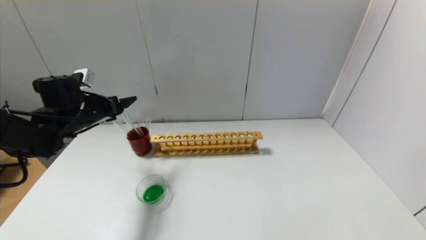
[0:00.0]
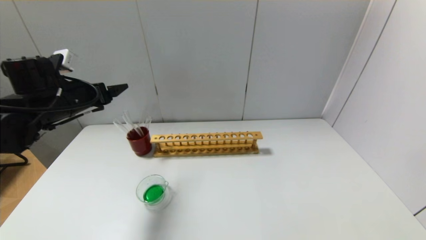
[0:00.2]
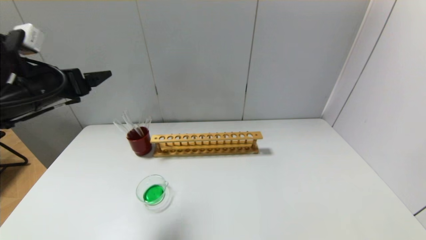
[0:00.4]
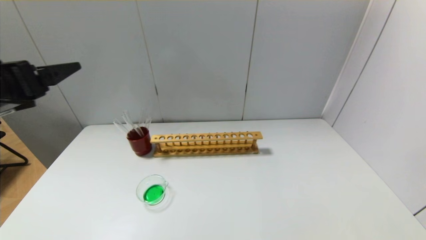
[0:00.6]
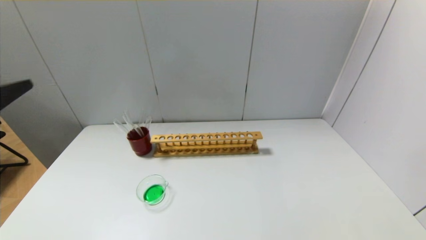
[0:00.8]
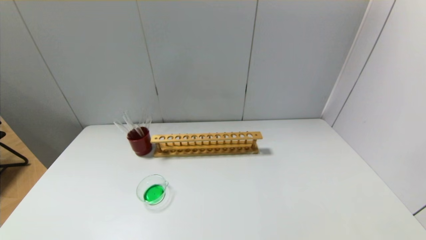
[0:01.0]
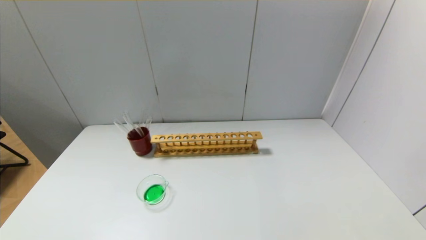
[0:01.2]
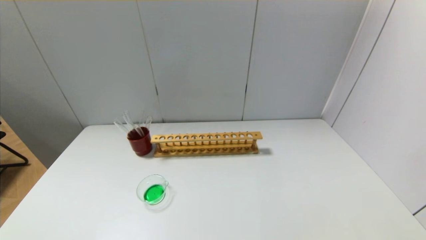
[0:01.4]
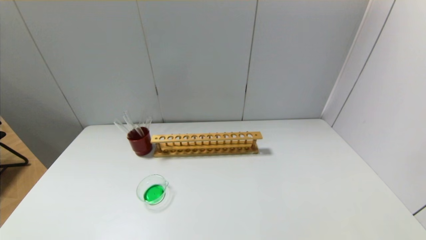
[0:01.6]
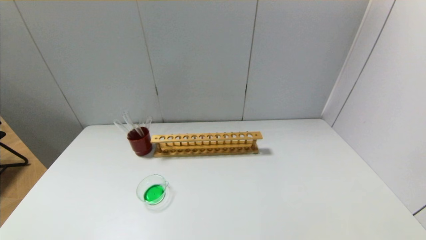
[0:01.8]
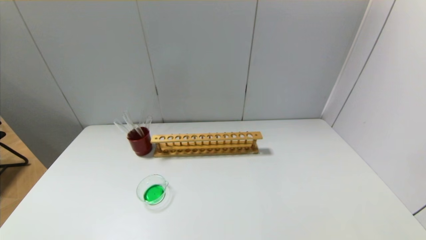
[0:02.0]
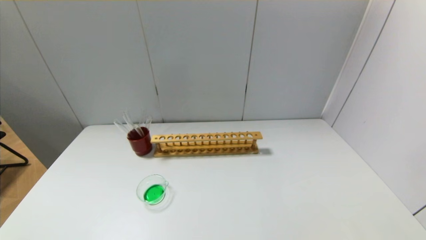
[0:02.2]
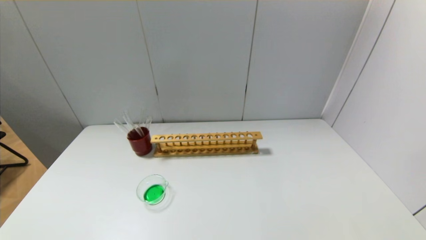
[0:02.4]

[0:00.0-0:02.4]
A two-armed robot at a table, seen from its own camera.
0.0 to 1.2 s: The left gripper is displaced backward by some 40 cm.

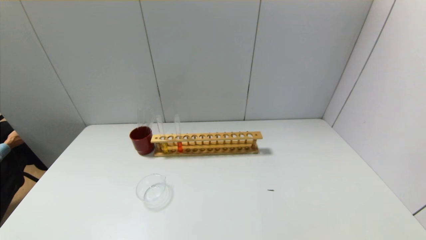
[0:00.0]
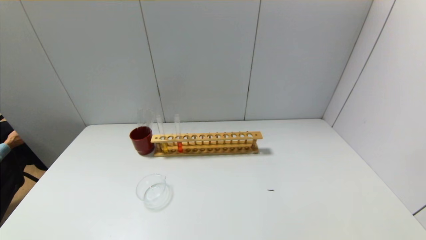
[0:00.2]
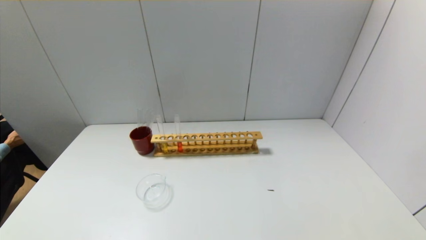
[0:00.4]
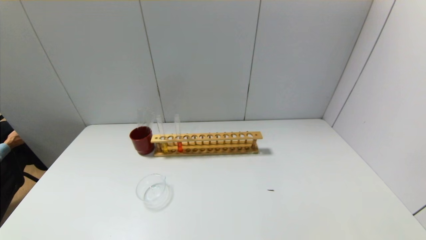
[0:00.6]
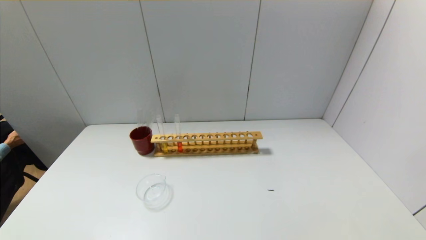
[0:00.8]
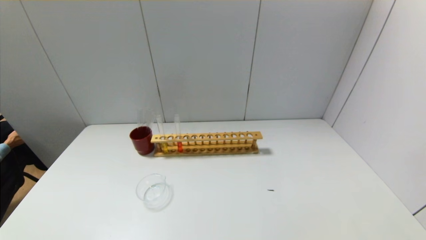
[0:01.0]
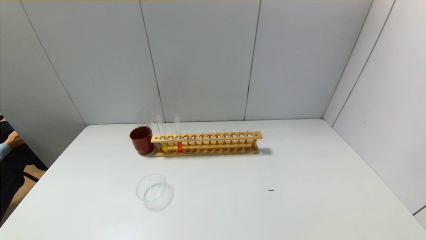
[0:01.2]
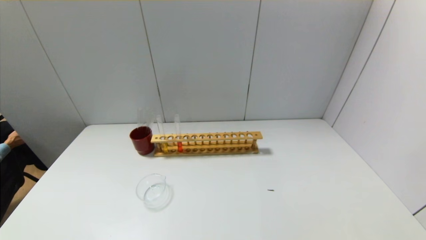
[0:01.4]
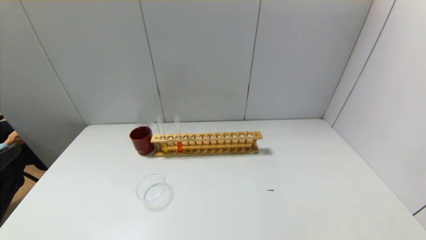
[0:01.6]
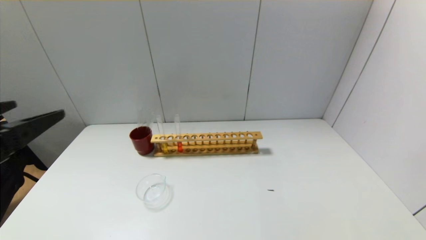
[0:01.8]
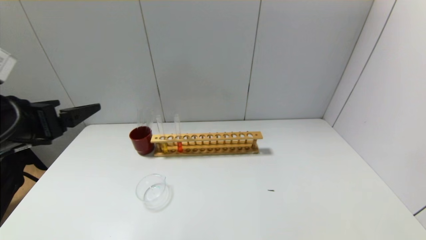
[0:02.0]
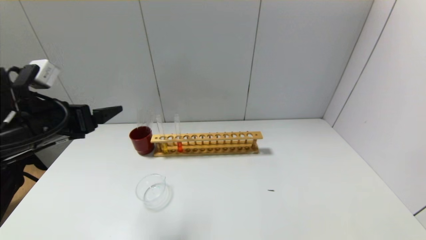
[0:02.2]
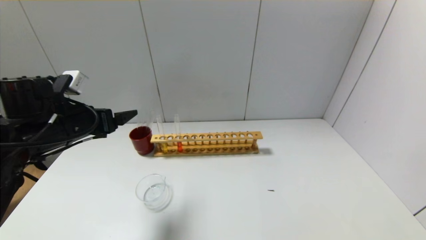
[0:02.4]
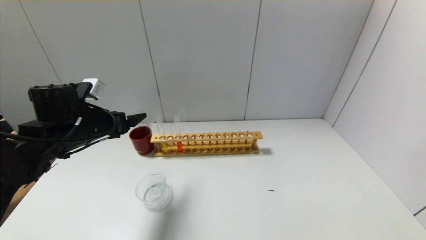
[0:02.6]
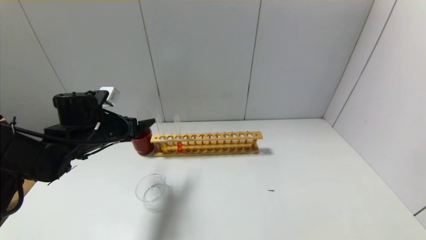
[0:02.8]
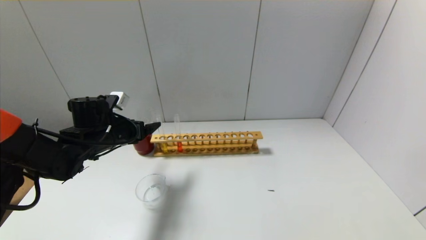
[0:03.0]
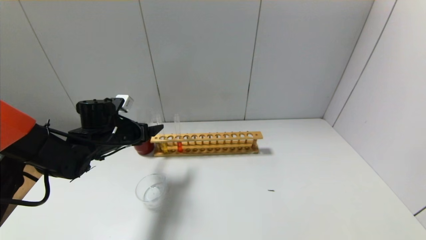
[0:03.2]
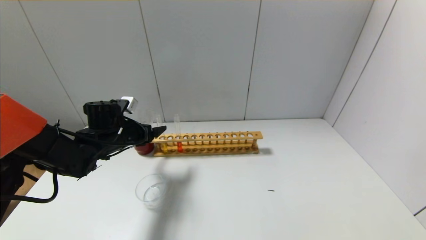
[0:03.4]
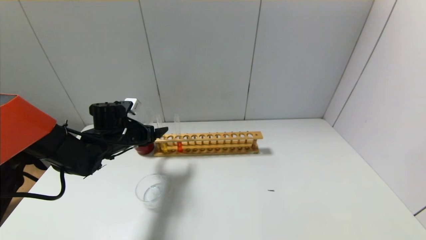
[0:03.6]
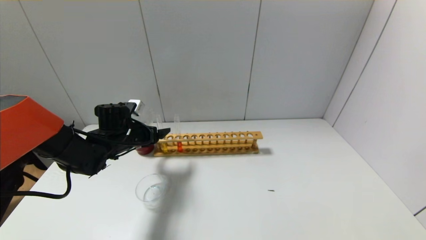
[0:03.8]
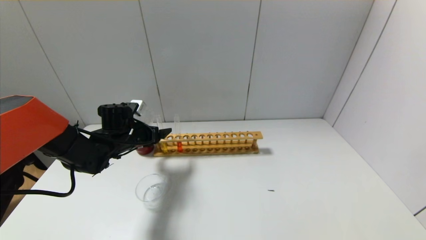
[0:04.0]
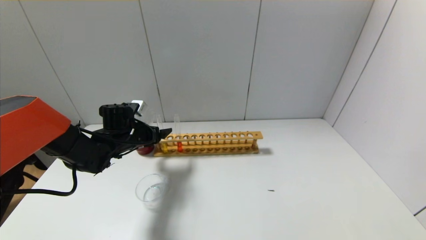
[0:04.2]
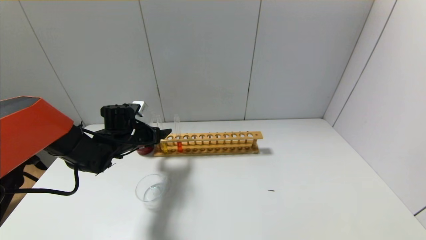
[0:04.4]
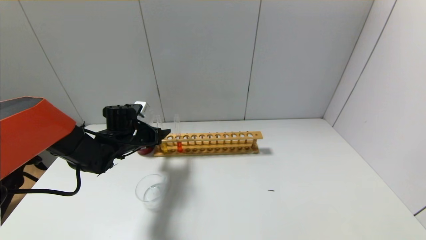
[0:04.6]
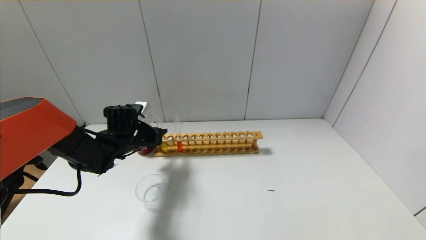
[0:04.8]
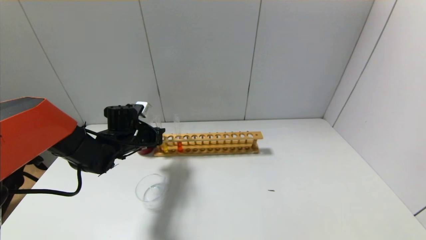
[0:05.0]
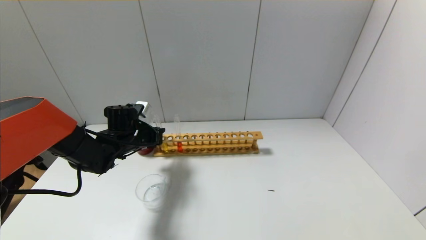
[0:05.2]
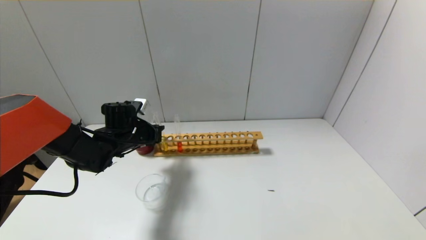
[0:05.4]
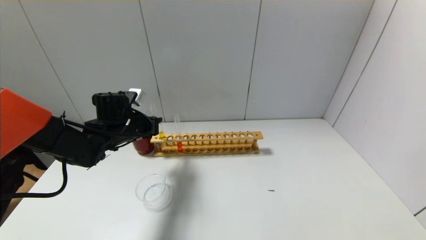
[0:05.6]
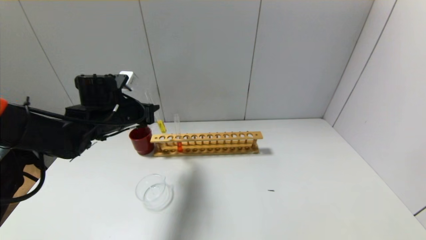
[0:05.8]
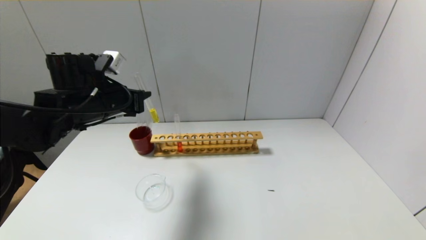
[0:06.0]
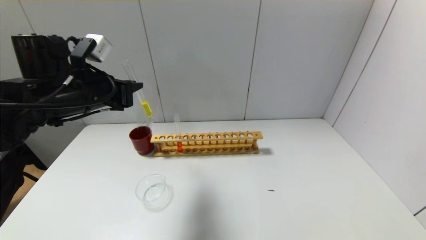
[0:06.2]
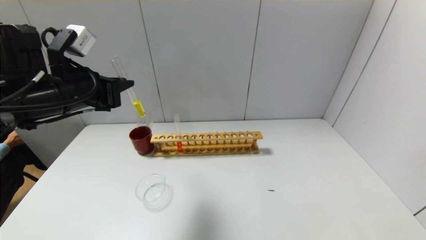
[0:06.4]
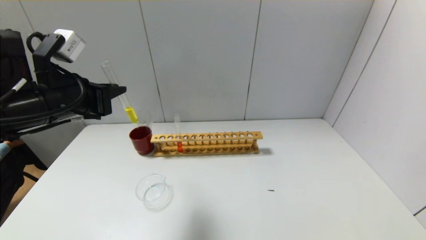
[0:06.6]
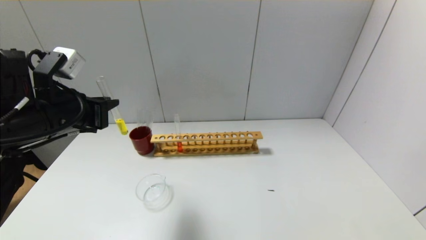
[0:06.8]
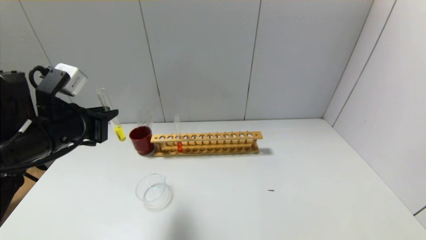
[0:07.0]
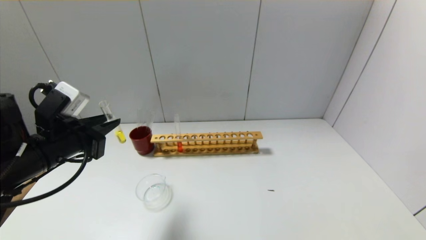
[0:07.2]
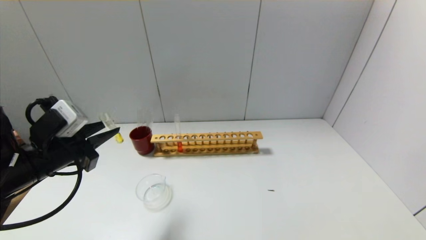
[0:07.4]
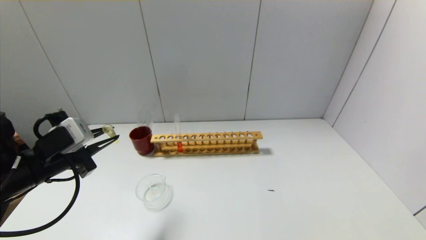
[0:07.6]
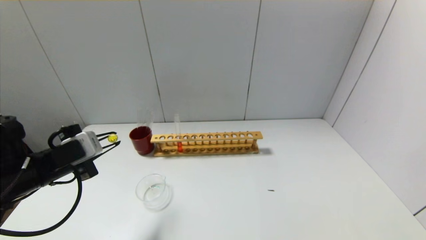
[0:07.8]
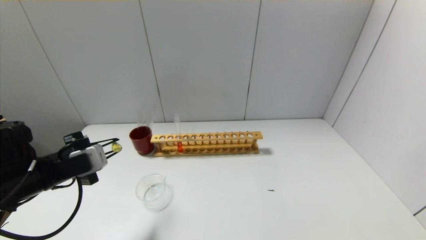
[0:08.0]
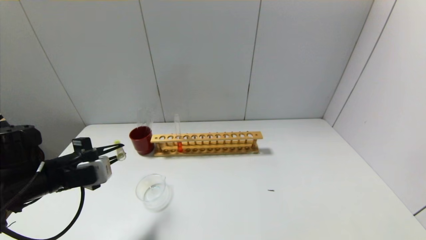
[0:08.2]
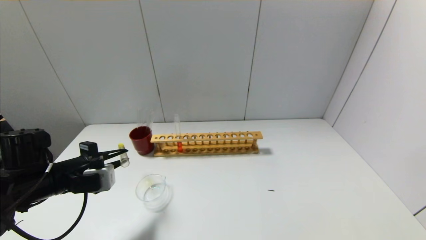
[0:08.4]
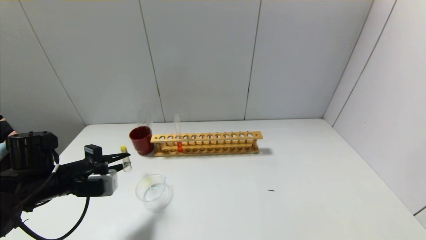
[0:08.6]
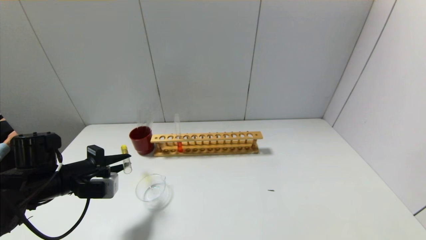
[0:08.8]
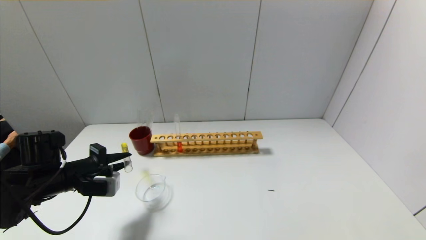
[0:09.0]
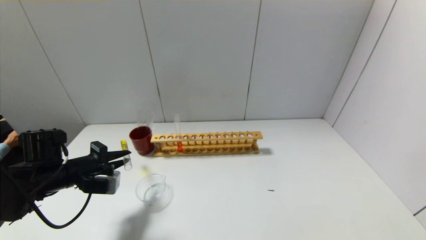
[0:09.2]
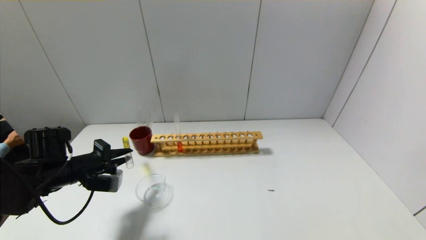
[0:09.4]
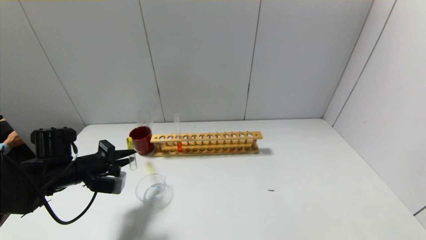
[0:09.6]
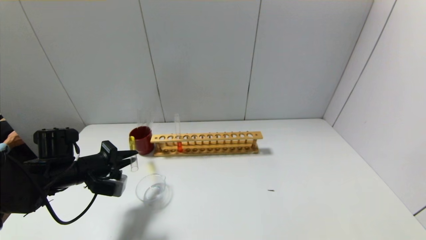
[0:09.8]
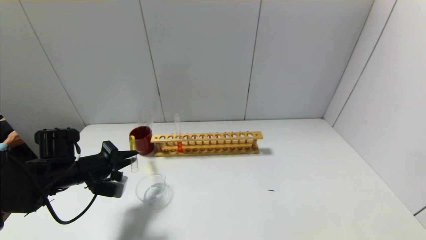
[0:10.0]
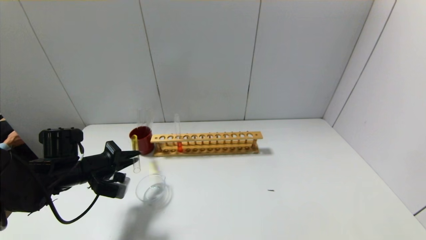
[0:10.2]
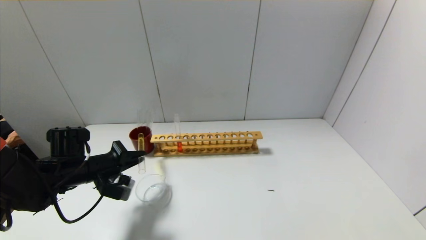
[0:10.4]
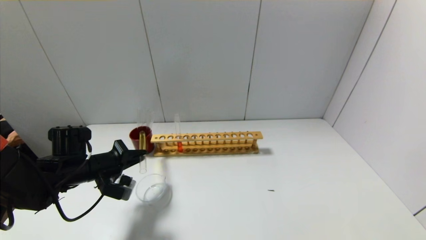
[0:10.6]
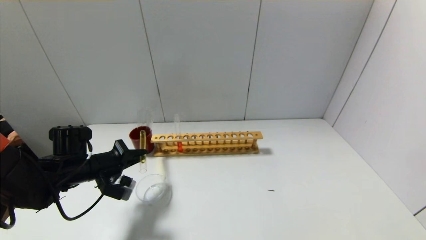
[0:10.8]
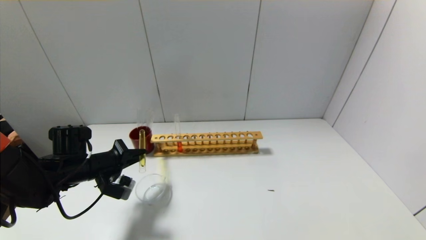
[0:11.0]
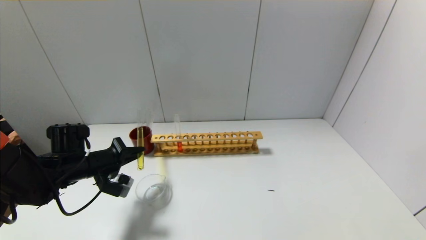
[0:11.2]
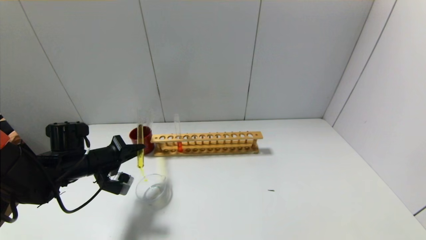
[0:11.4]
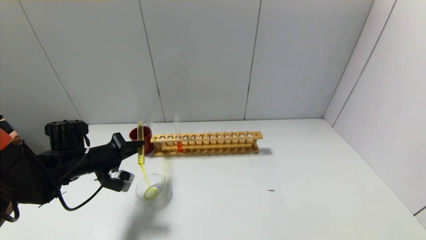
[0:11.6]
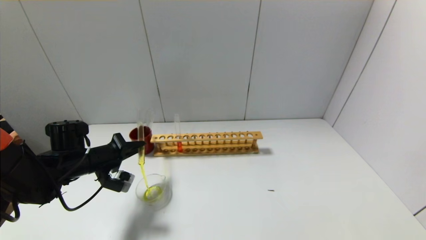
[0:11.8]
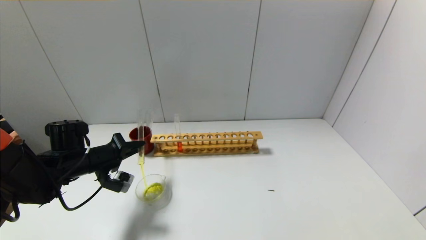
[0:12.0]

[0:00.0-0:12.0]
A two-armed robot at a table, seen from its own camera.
Step, 0.0 to 5.0 s: Grasp the yellow reagent with the left gripper.
1.6 to 3.0 s: The left gripper travels forward and downward by roughly 30 cm.
3.0 to 4.4 s: The left gripper shifts by some 5 cm.
4.4 to 6.0 s: The left gripper moves upward and backward, about 15 cm, and closes its fingers.
6.0 to 7.6 s: The left gripper goes roughly 15 cm backward, to the left and downward.
7.6 to 9.0 s: The left gripper moves downward, roughly 5 cm.
10.4 to 12.0 s: The grippers stay close to where they were, moving slightly.

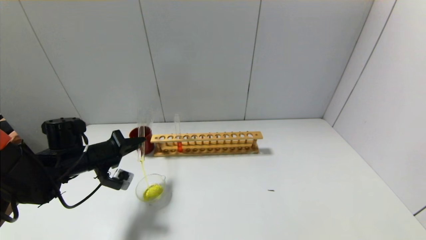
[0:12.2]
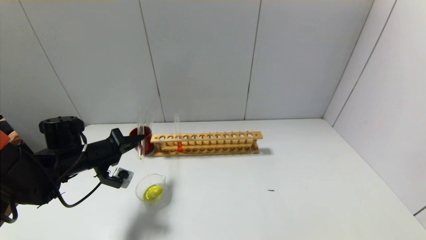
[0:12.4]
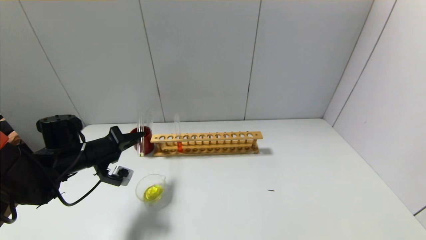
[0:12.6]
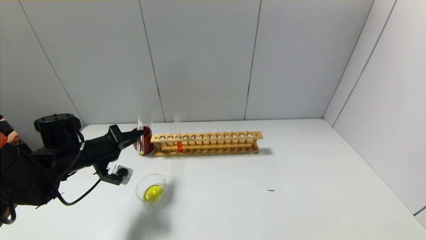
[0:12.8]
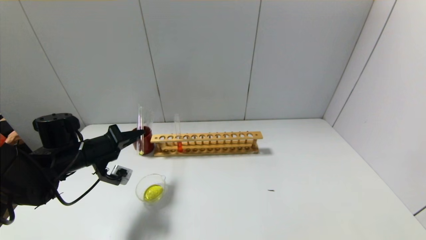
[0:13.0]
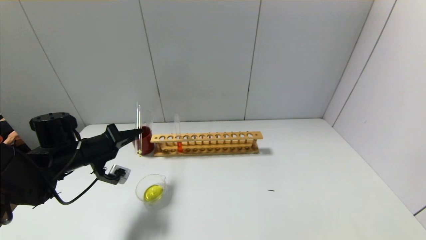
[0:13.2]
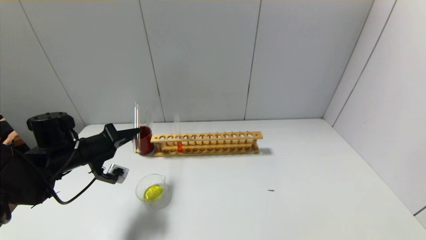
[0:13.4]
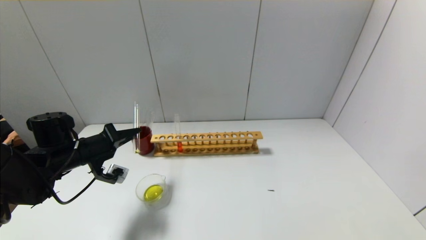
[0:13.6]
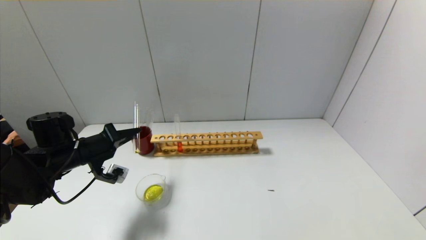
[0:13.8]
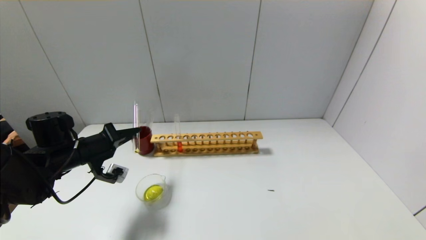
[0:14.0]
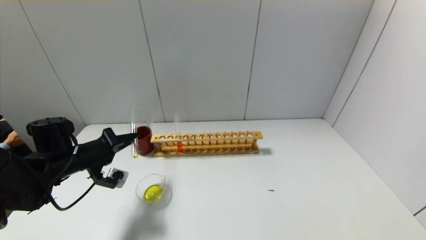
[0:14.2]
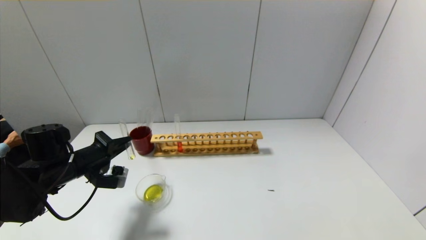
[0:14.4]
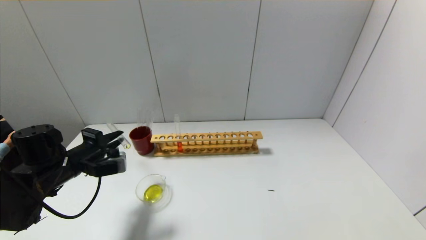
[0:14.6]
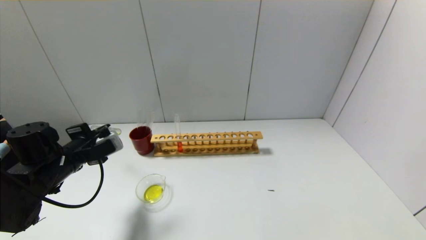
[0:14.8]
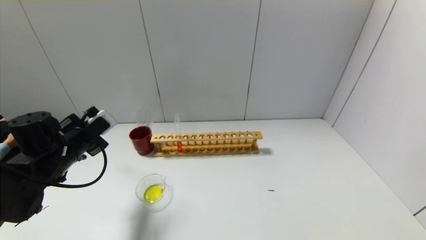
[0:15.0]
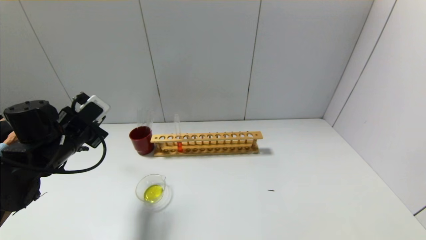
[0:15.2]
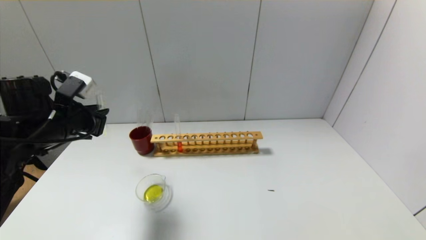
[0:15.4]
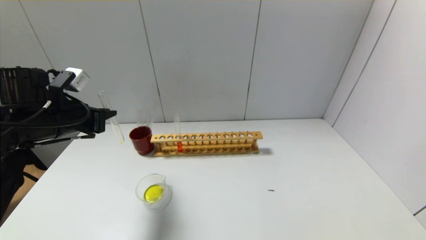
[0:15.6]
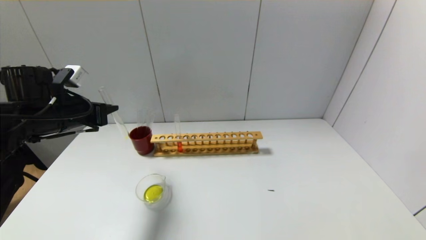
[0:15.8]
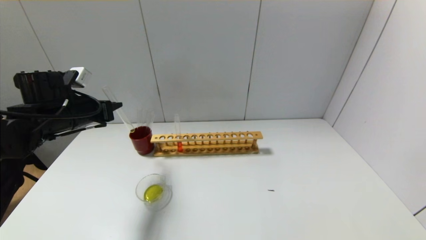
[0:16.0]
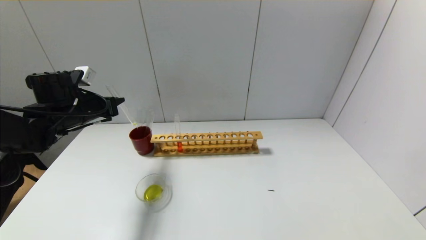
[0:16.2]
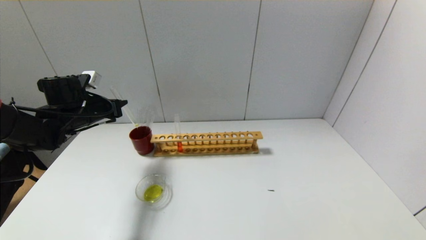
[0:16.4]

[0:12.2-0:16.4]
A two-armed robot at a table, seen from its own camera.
Step, 12.2 to 14.6 s: Pour the yellow reagent into the graduated cylinder with the left gripper.
12.2 to 13.6 s: There are only small adjustments of the grippers.
15.0 to 16.4 s: The left gripper shifts approximately 10 cm forward.
